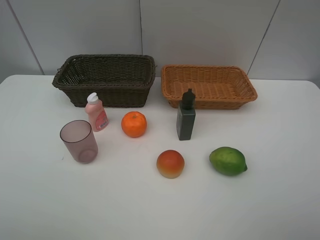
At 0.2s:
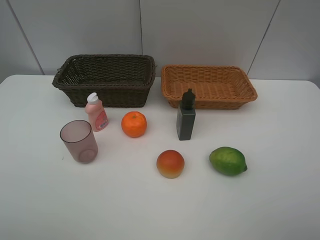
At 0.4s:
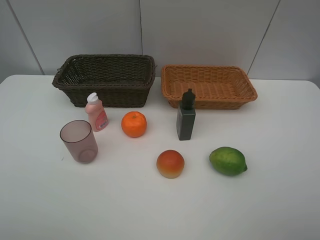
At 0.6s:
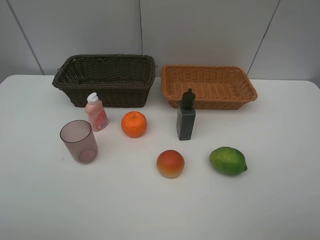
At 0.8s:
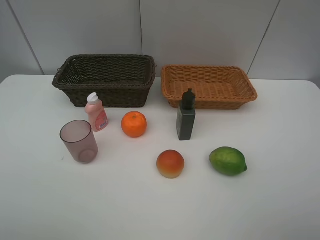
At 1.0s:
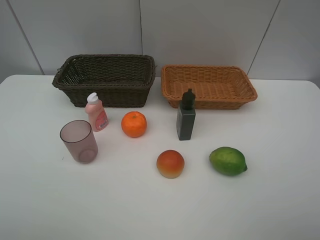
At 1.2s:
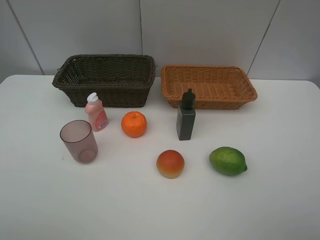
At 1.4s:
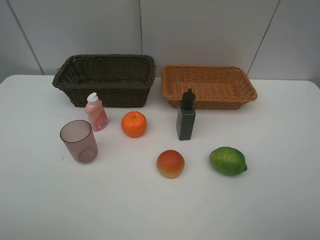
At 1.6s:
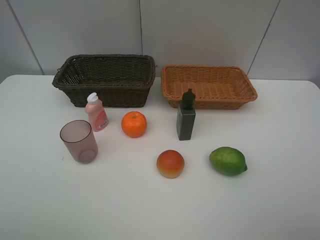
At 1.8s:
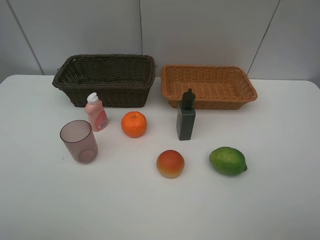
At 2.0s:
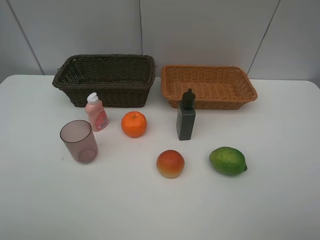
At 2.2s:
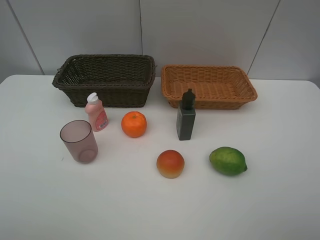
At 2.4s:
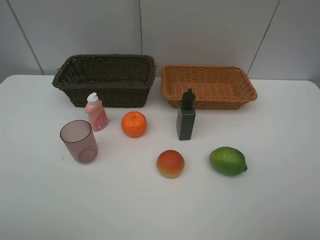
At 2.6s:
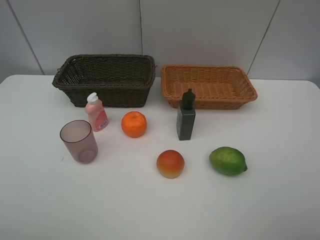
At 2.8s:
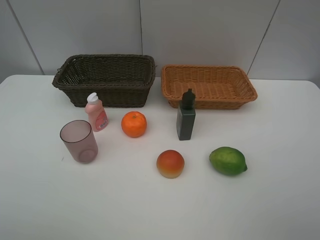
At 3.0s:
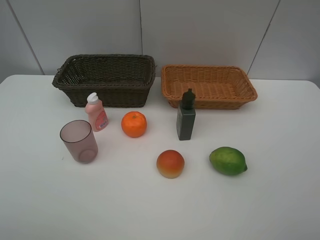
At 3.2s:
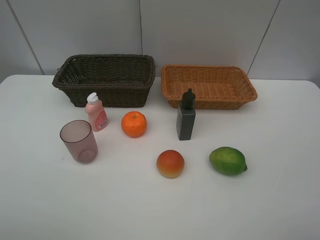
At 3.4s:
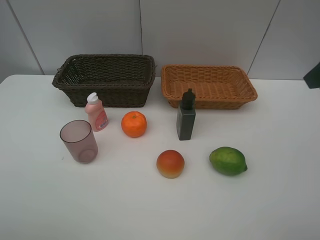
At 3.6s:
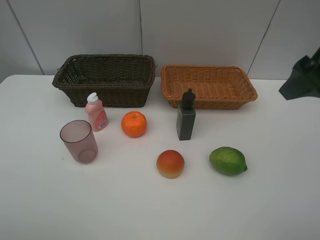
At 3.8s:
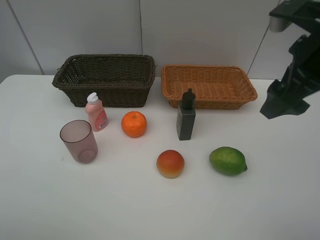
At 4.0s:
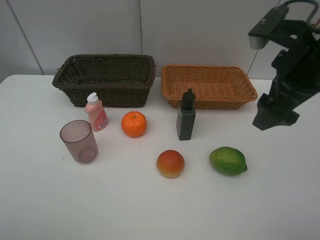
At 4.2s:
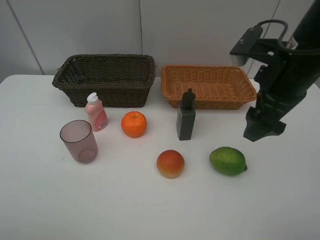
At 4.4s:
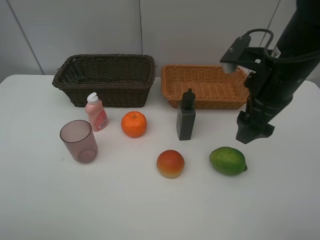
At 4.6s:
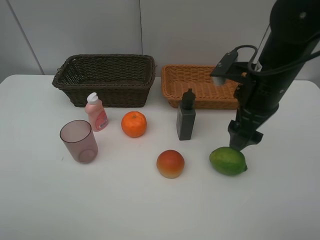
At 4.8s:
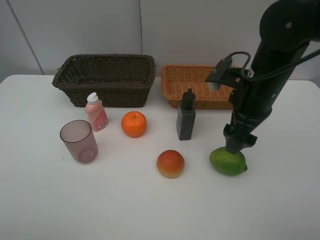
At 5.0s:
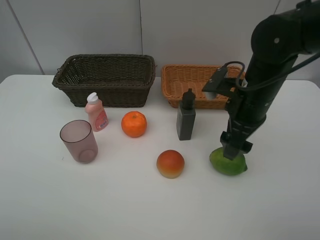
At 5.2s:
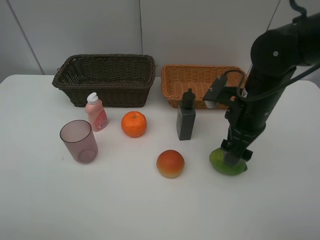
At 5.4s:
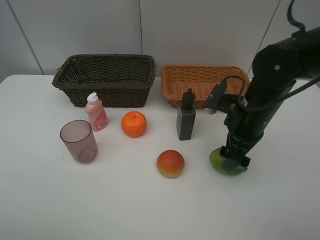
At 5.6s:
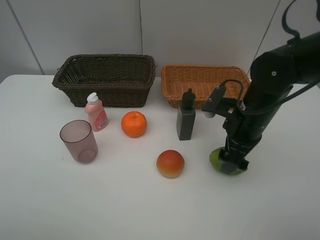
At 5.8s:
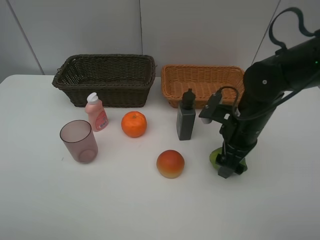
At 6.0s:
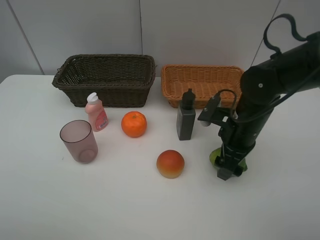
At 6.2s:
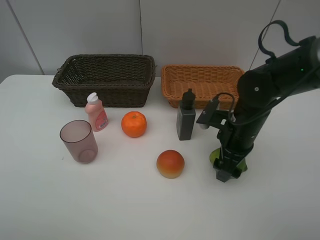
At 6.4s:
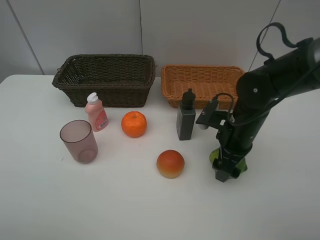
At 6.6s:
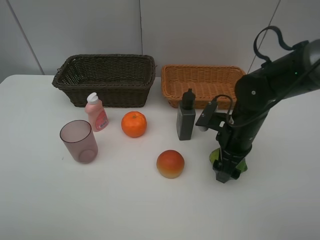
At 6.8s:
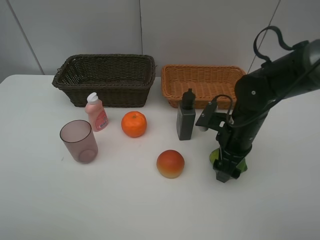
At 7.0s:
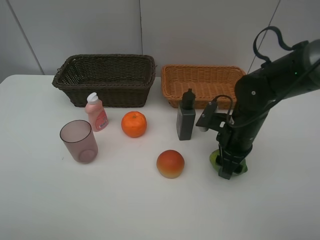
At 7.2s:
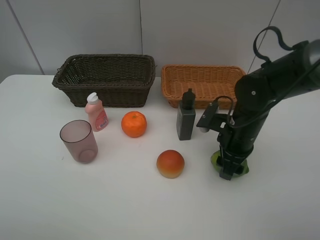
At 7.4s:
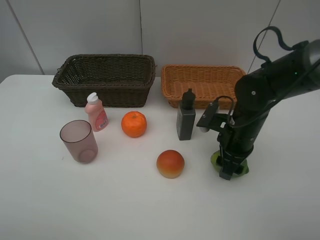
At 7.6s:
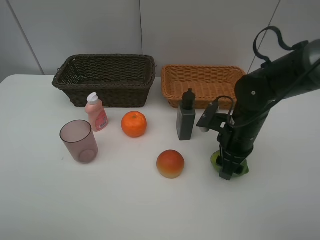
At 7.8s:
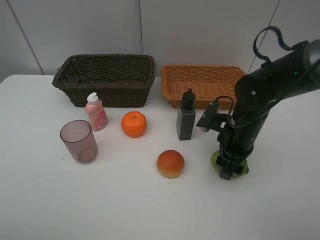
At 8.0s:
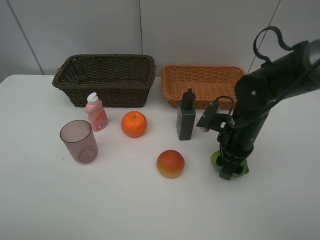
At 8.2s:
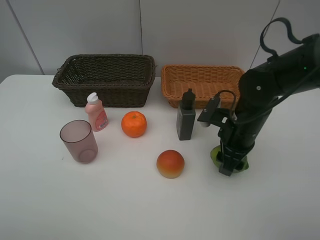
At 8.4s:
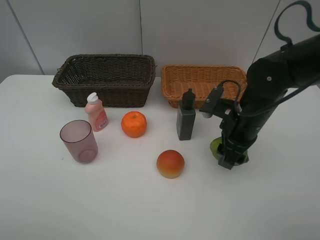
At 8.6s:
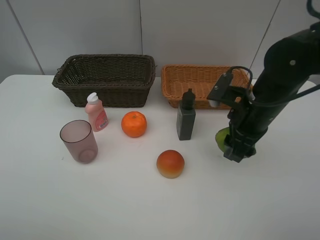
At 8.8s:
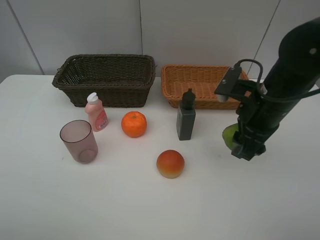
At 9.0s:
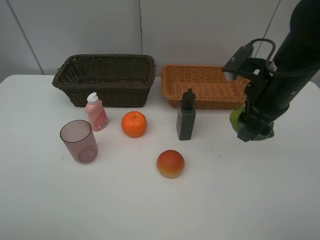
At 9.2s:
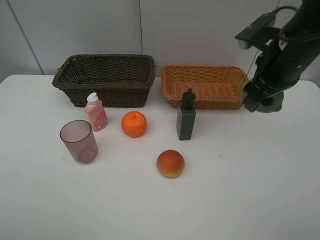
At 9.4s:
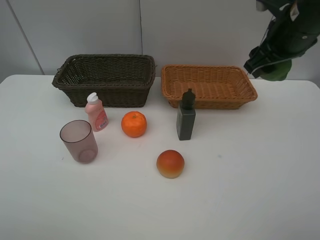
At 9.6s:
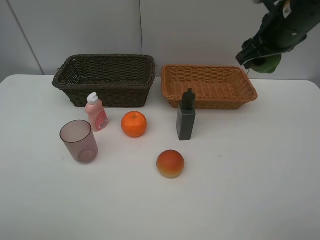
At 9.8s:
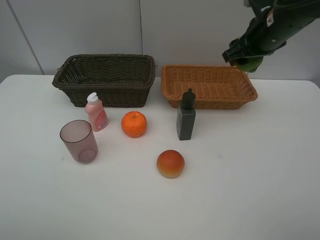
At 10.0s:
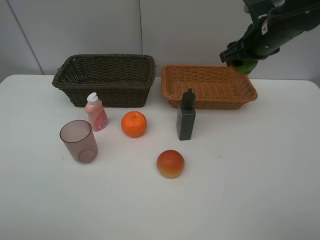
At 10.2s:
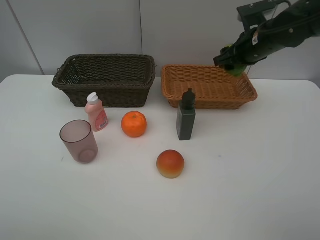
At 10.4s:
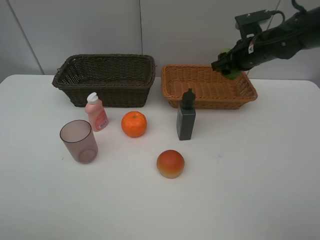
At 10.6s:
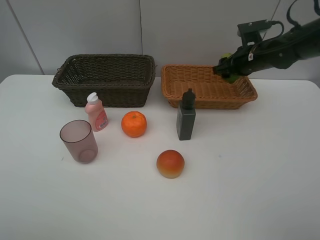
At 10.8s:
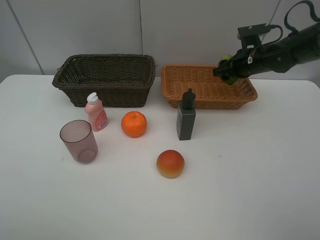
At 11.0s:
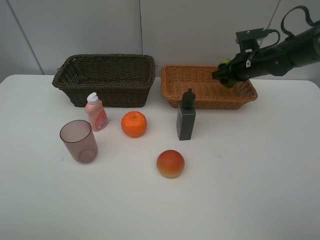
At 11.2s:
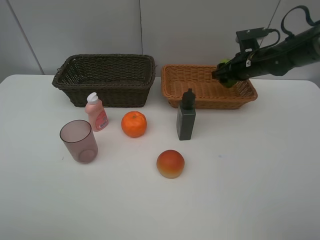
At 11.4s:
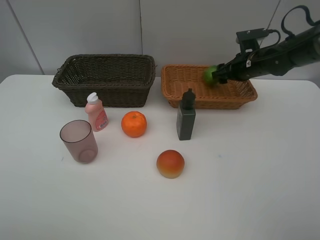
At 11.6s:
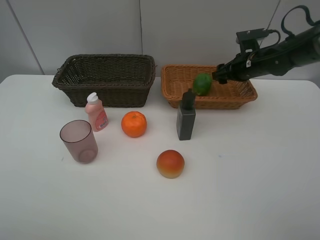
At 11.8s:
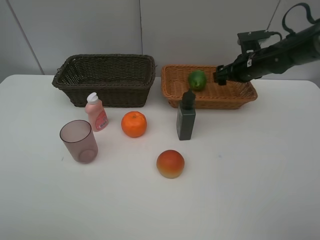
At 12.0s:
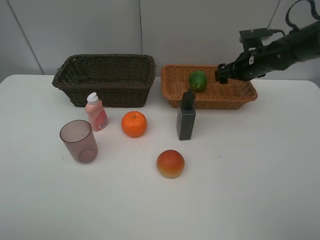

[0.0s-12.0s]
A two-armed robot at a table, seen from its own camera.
Task of the whole recording: place multiple objects separately in different baskets.
0.0s to 1.6s: The two grippers keep their place.
3.0s to 4.4s: The right gripper goes about 20 cm forward, to the left and downward.
4.4s to 6.0s: The right gripper moves downward, roughly 10 cm.
6.0s to 7.6s: The right gripper closes its fingers.
7.6s to 9.0s: The right gripper goes some 15 cm upward.
9.0s to 10.4s: The right gripper is displaced forward by some 15 cm.
10.4s to 12.0s: The right gripper opens.

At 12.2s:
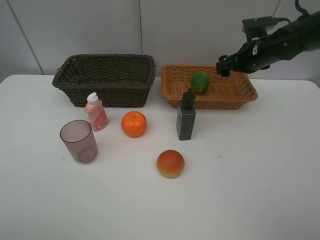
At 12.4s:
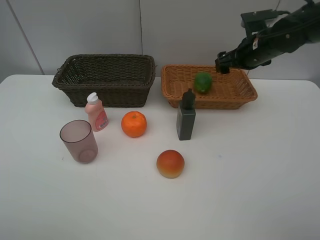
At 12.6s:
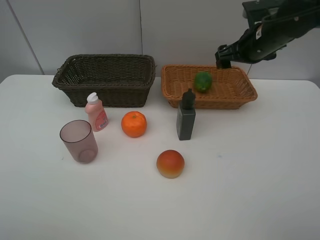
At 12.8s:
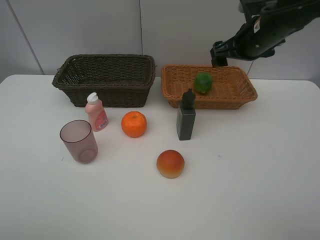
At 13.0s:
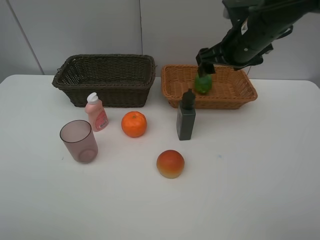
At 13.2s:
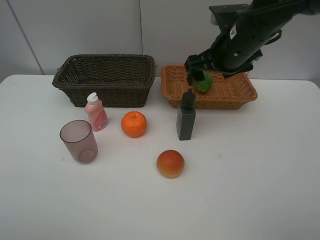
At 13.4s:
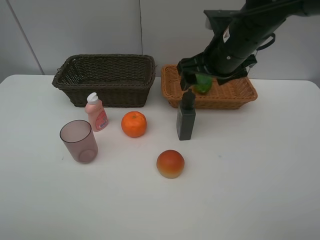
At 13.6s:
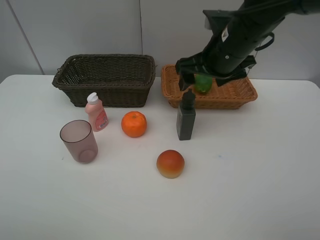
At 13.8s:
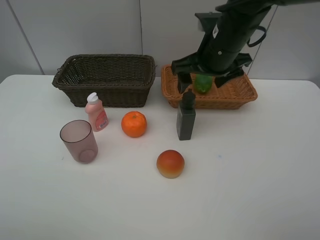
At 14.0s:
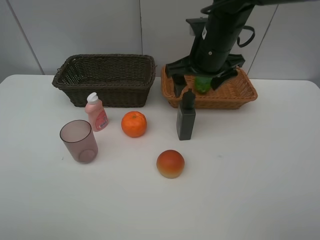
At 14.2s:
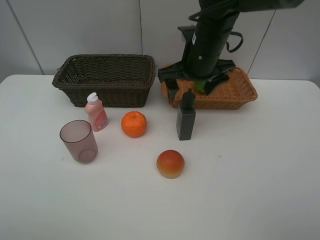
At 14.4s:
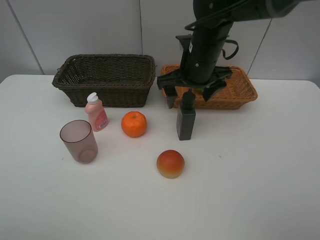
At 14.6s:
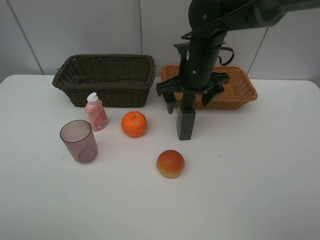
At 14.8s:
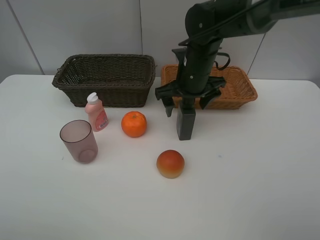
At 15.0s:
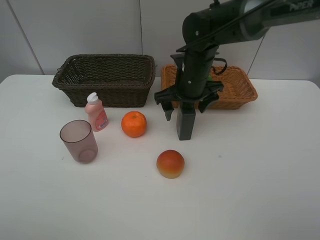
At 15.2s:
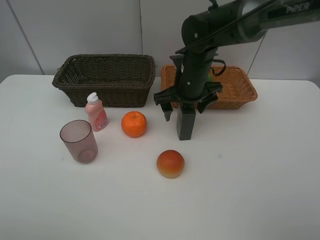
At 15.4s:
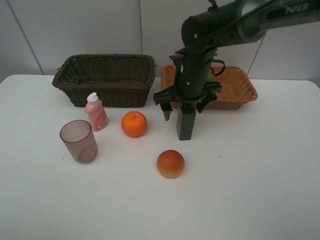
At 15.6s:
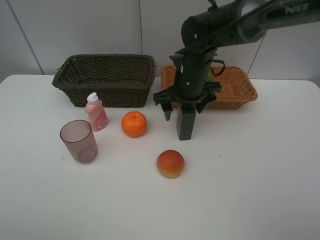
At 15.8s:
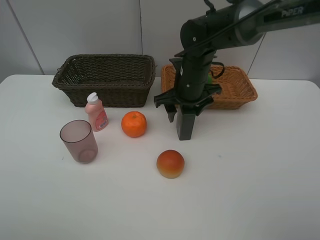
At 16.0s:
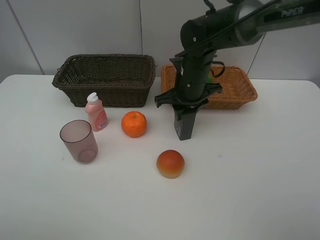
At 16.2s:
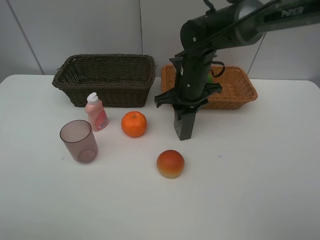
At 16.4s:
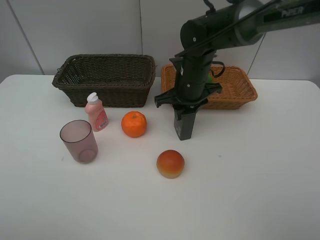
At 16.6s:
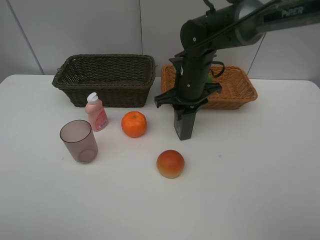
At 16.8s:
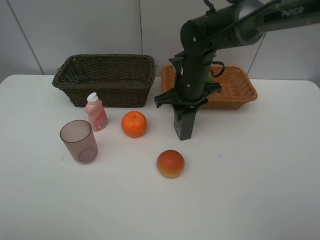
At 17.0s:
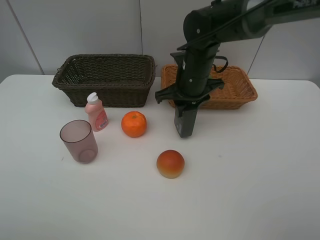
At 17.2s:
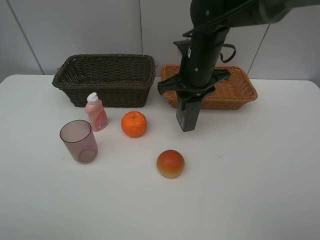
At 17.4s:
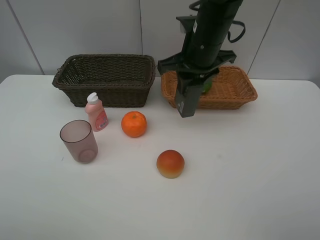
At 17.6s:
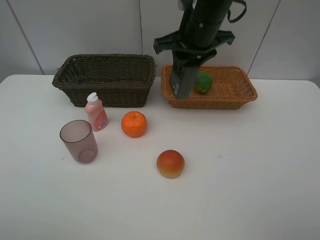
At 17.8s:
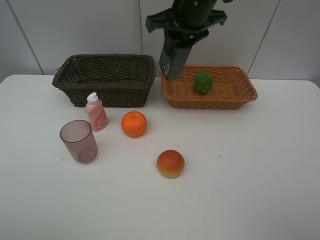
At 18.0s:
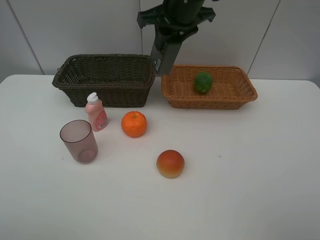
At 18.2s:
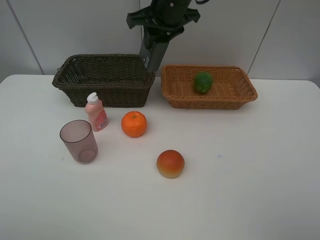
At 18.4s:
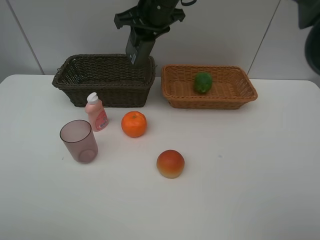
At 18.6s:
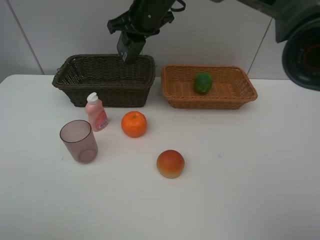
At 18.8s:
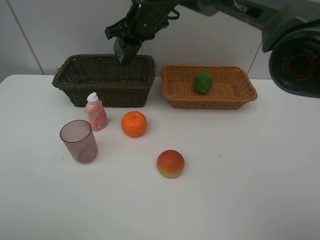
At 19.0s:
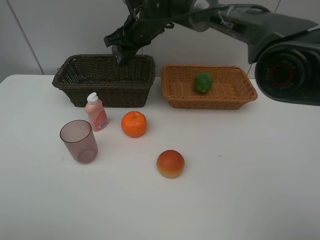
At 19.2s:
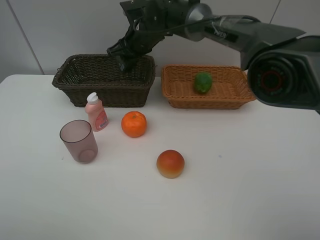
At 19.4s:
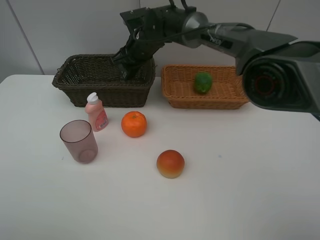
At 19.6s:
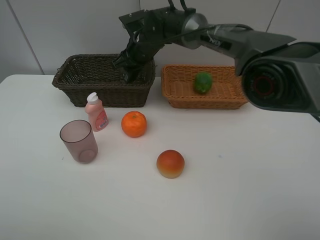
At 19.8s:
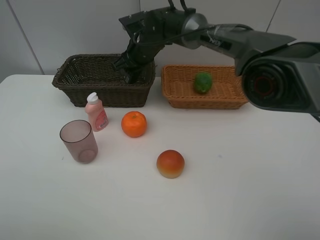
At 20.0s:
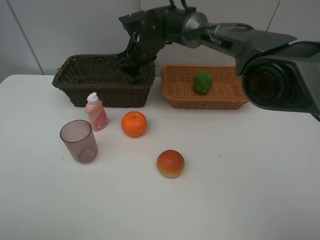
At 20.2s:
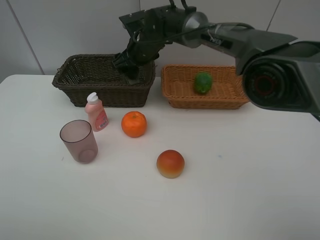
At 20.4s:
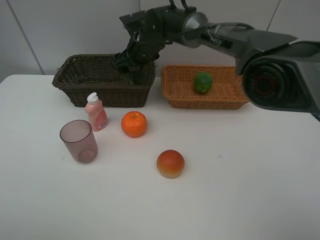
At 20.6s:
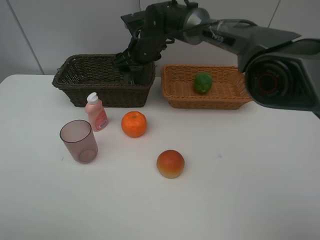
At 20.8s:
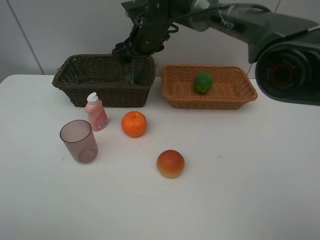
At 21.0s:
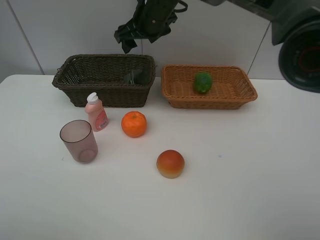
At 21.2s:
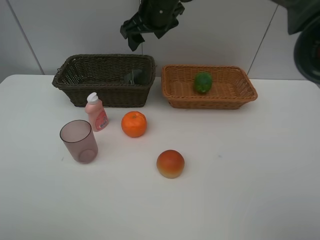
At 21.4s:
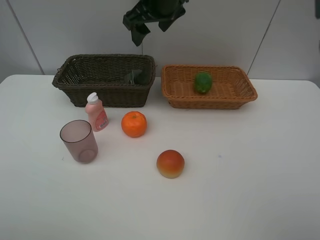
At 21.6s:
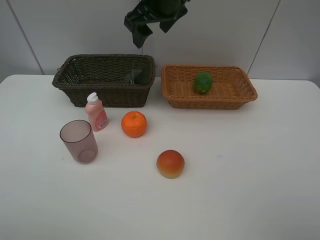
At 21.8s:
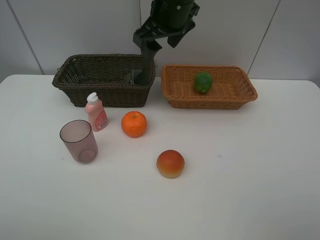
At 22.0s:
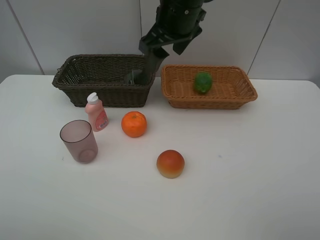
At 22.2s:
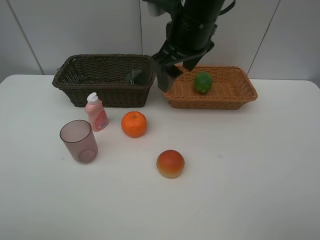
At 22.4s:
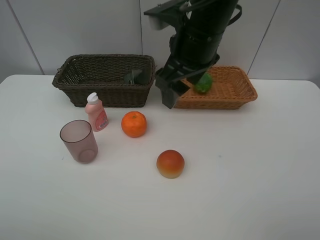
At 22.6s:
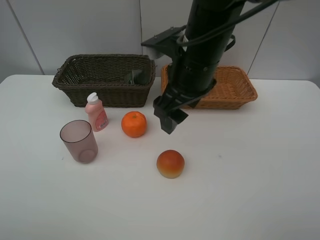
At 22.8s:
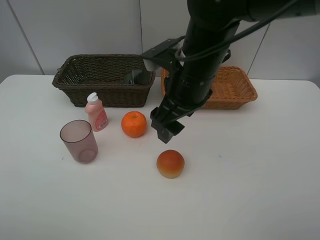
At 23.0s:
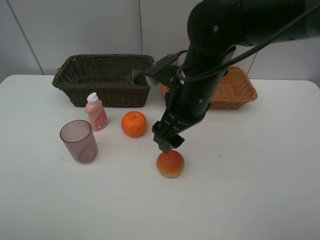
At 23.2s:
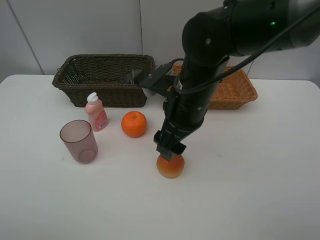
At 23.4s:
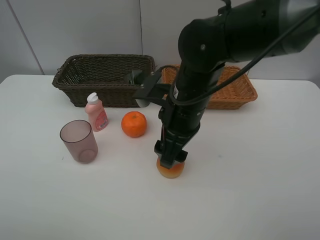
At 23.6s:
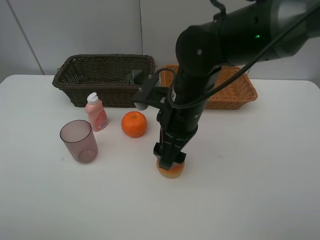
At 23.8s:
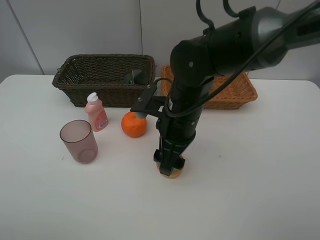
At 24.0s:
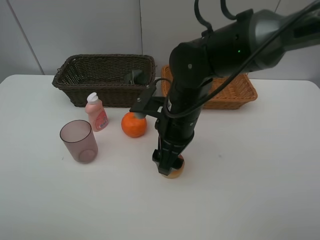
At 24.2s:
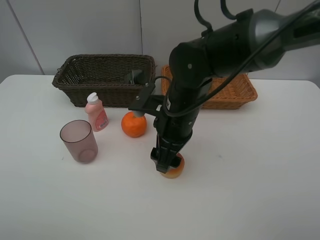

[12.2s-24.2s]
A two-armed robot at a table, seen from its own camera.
Task of the whole recording: place multiple objects separately in different baskets.
12.2s to 13.8s: The right gripper goes about 15 cm to the left, backward and upward.
13.8s to 15.2s: The right gripper heads downward, covering approximately 10 cm.
15.2s to 16.6s: The right gripper closes up.
16.6s to 18.2s: The right gripper is displaced upward by approximately 15 cm.
18.2s to 19.8s: The right gripper moves downward, forward and to the left, roughly 15 cm.
19.8s to 21.2s: The right gripper heads upward, covering approximately 10 cm, and opens up.
21.2s to 22.6s: The right gripper heads backward, covering about 15 cm.
22.6s to 24.2s: The right gripper moves downward, some 10 cm.
